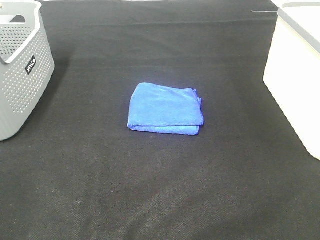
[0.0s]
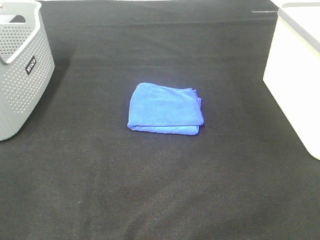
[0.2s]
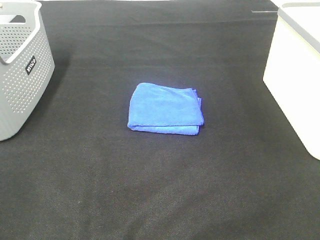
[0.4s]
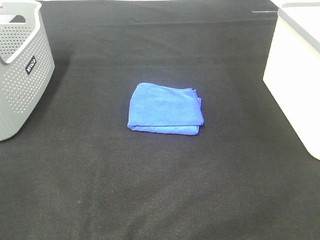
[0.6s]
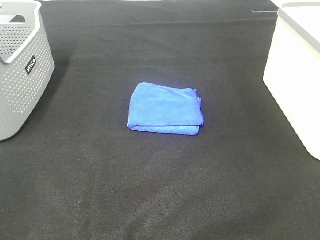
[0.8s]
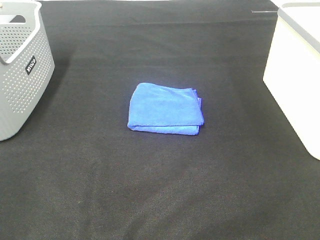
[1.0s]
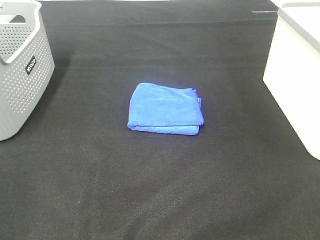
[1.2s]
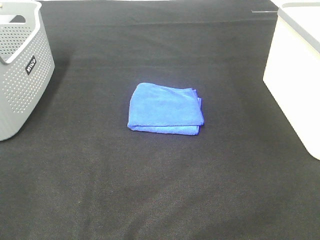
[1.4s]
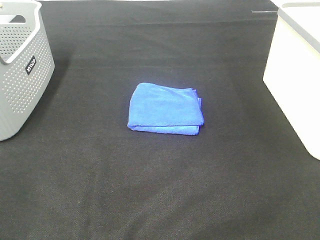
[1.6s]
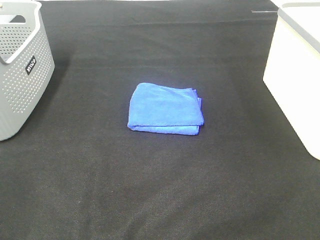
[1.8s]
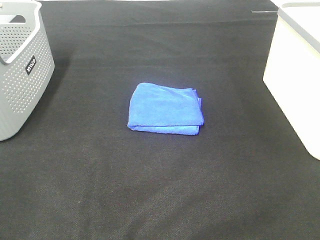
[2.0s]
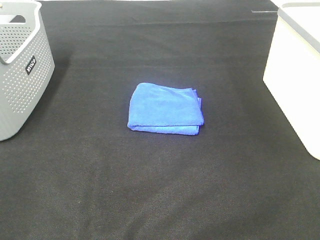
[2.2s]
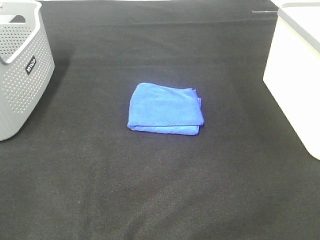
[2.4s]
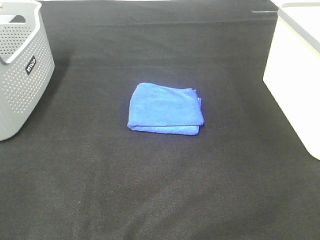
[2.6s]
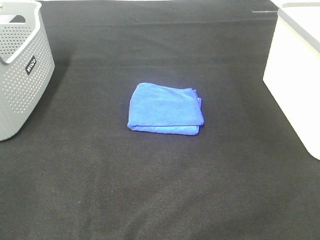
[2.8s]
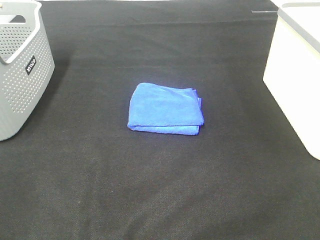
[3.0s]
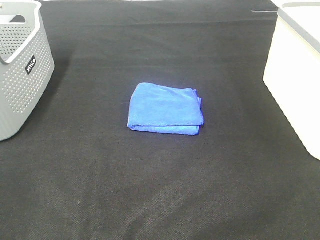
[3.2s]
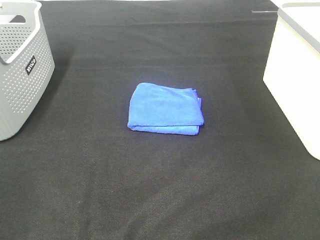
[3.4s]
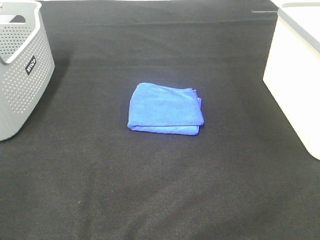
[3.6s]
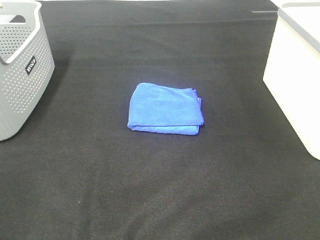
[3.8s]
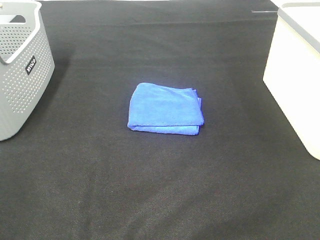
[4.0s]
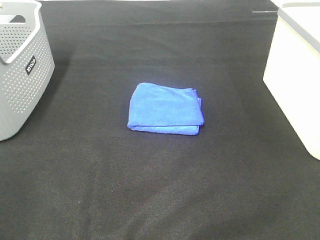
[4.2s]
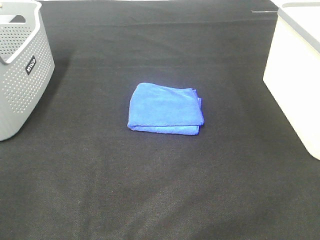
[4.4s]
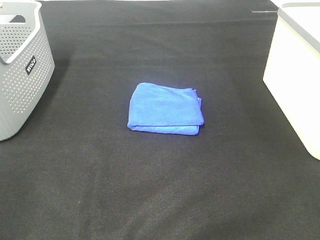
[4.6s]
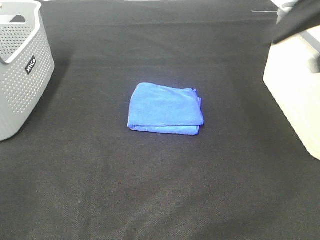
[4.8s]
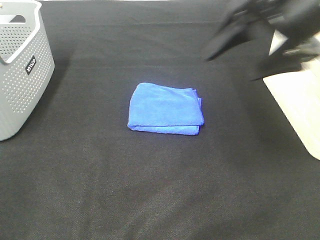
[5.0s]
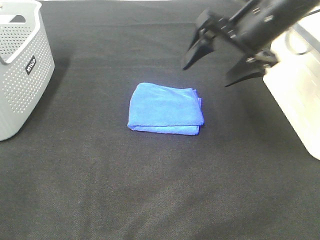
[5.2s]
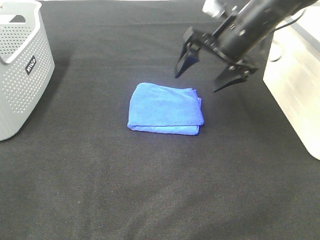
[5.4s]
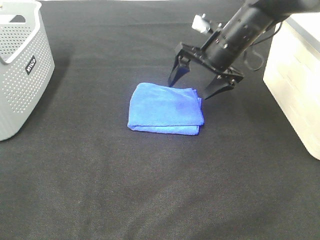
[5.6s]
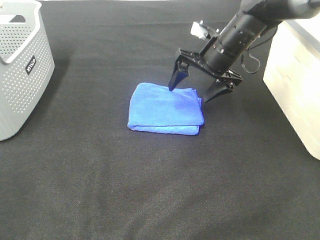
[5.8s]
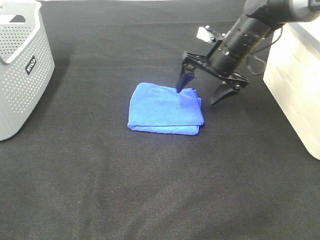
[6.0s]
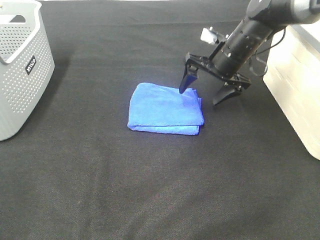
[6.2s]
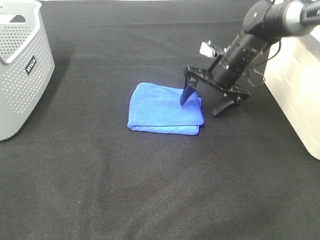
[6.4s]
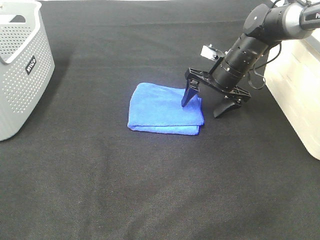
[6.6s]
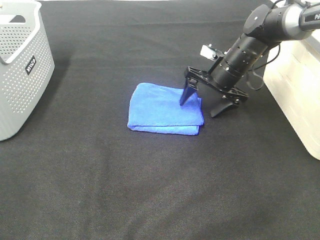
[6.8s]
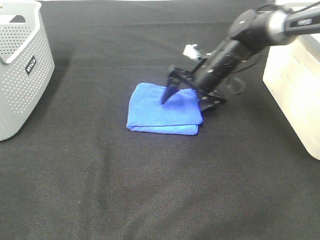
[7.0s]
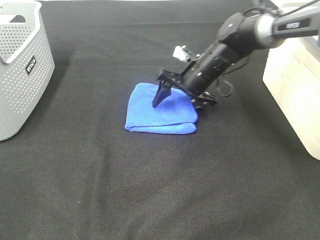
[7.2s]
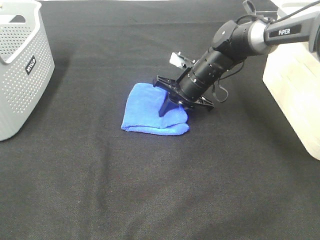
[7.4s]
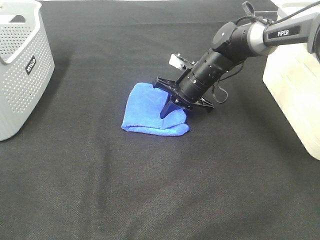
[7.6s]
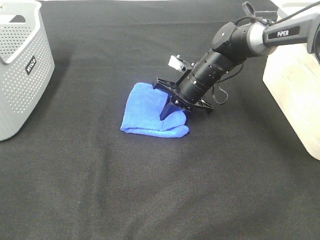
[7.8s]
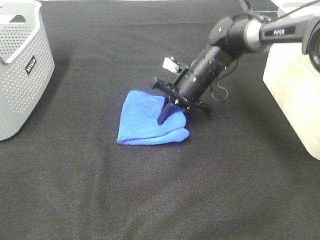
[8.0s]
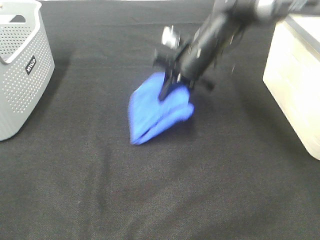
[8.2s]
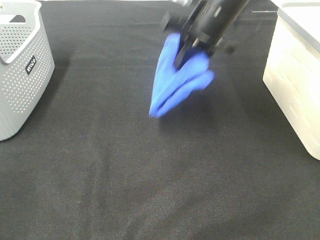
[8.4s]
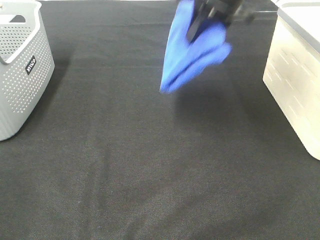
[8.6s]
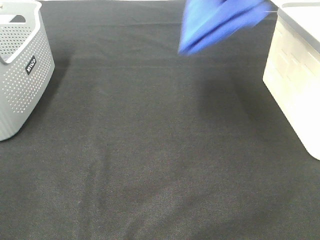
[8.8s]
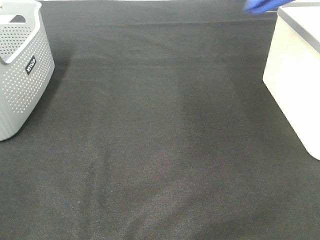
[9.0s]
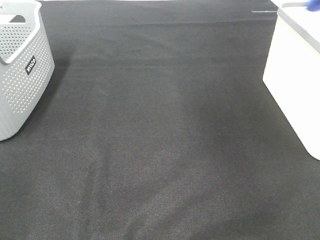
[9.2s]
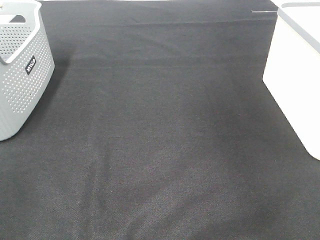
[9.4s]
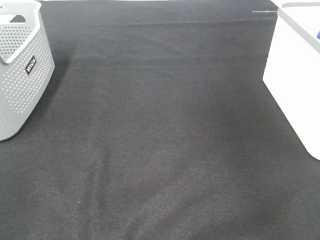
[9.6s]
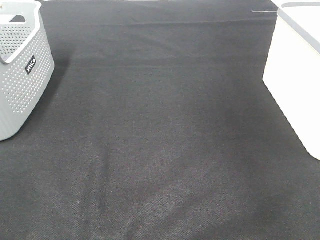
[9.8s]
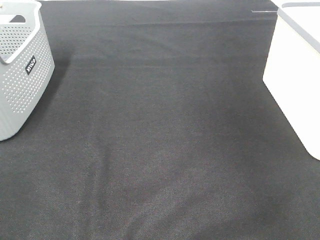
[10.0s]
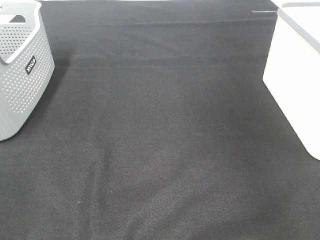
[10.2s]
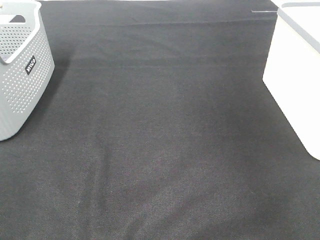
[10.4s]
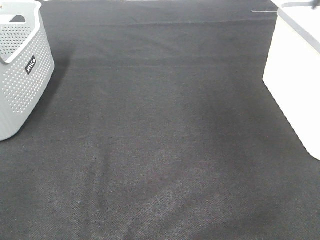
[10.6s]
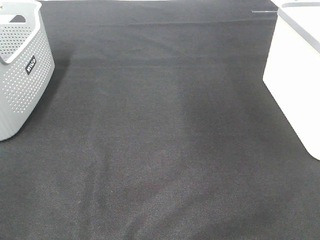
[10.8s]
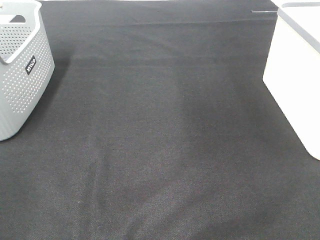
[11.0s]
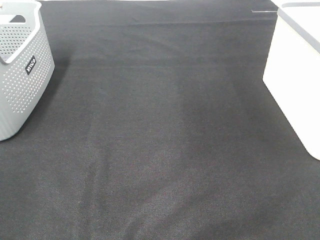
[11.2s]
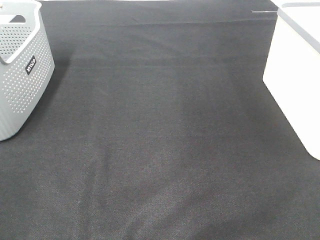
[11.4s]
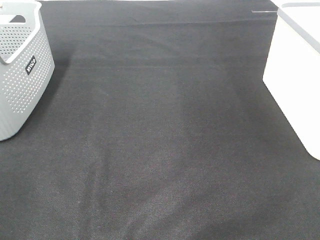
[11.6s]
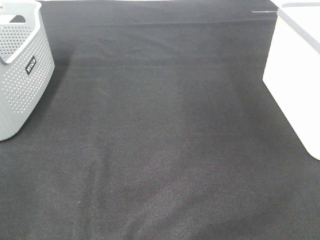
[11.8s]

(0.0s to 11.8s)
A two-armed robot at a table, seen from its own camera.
Step, 0.0s - 7.6s: Right hand: grab the folded blue towel.
Step, 7.8s - 10.2s: Right hand: place the blue towel in right basket.
0.0s - 3.0s: Both grippers stay about where they are.
4.4s - 6.0s: The right gripper shifts some 40 cm forward, downward and to the left.
6.0s - 7.4s: The right gripper moves downward and to the left, some 10 cm, and closes.
7.4s - 8.8s: The right gripper travels upward by roughly 30 cm.
8.8s - 10.4s: The right gripper moves to the right, about 20 cm, and opens.

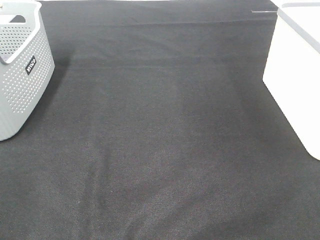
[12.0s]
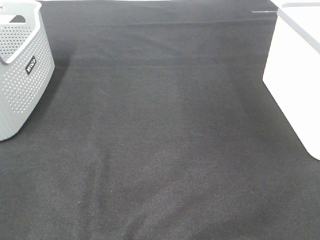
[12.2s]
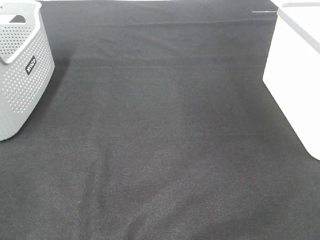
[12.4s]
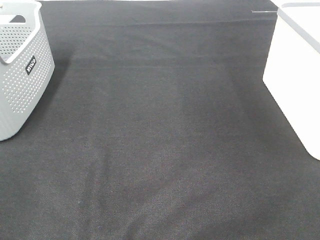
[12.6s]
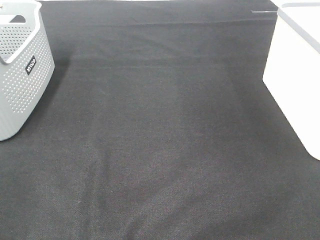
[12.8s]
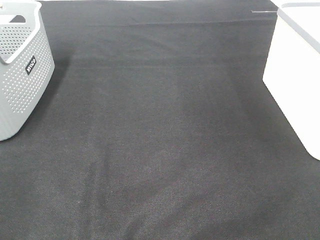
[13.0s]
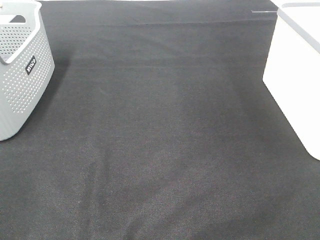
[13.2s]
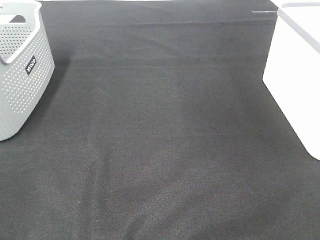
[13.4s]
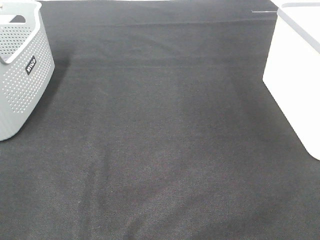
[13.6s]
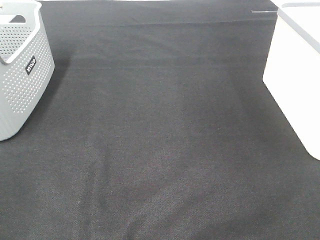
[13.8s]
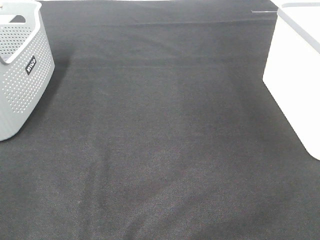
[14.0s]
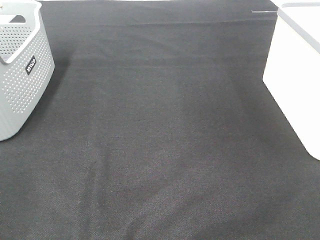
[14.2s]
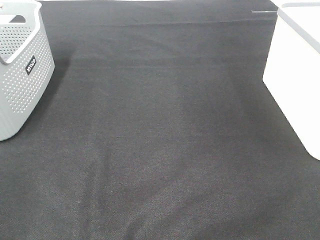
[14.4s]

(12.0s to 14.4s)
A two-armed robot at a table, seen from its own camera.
13.2s - 14.4s: The two grippers keep their place.

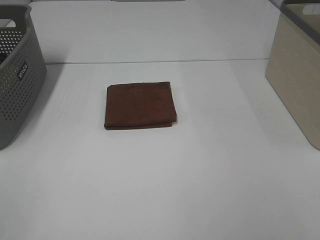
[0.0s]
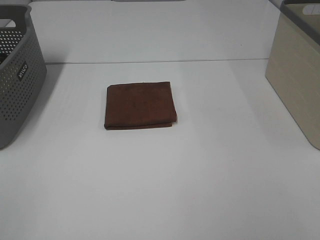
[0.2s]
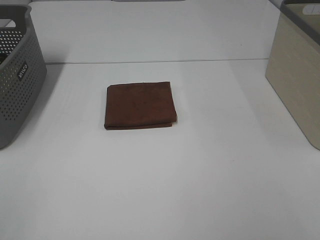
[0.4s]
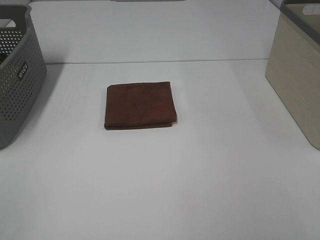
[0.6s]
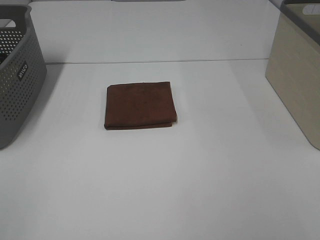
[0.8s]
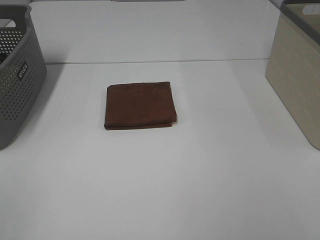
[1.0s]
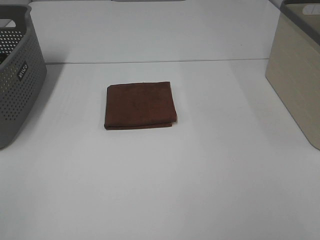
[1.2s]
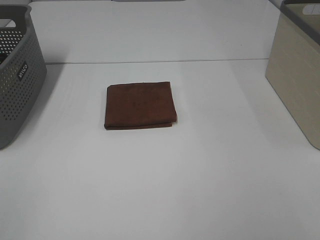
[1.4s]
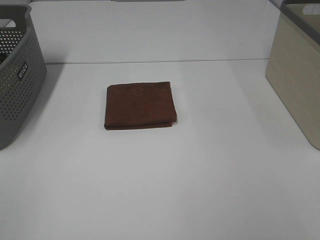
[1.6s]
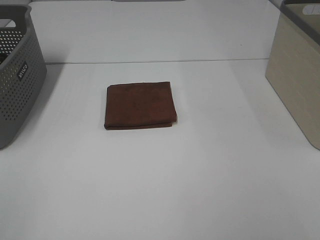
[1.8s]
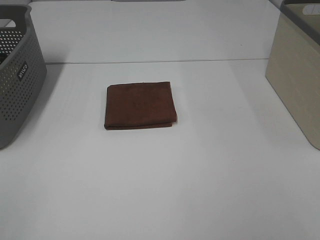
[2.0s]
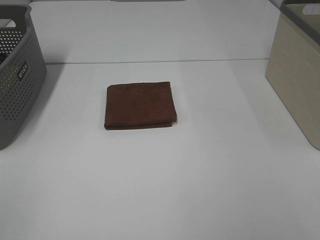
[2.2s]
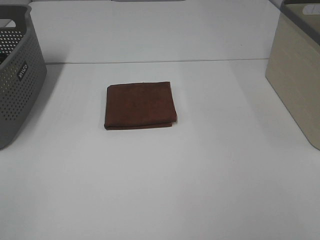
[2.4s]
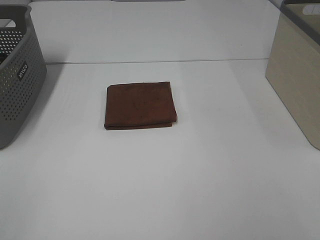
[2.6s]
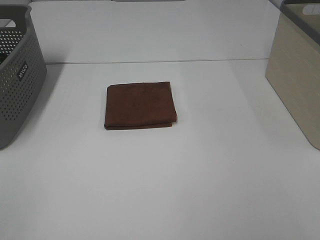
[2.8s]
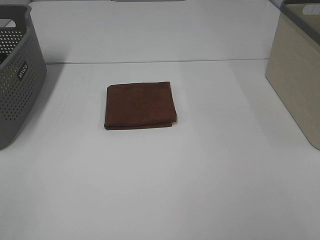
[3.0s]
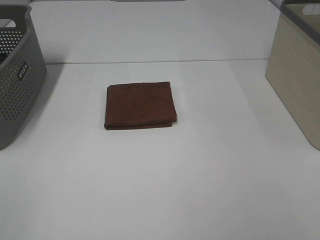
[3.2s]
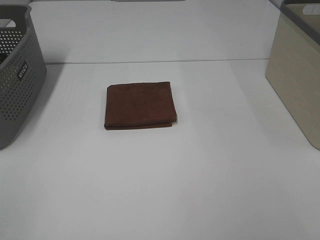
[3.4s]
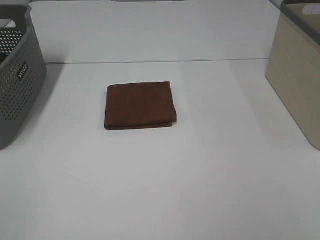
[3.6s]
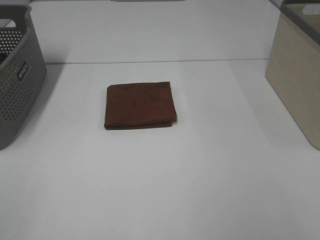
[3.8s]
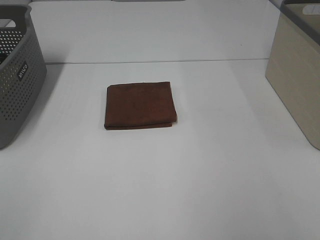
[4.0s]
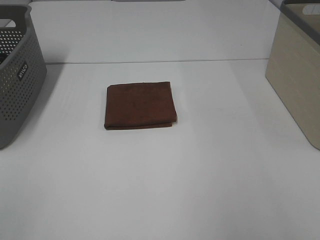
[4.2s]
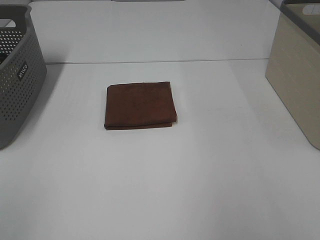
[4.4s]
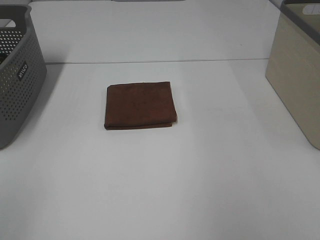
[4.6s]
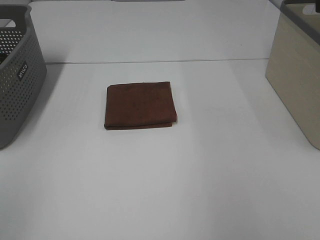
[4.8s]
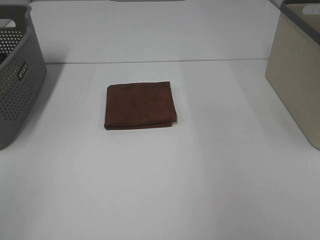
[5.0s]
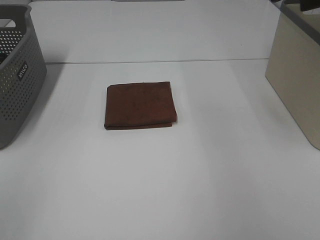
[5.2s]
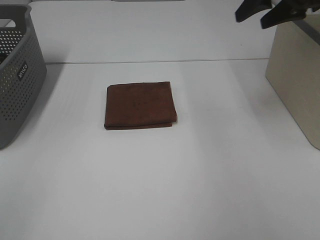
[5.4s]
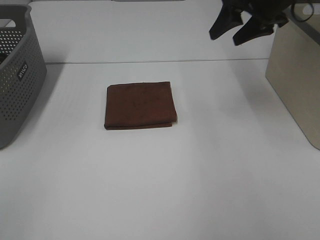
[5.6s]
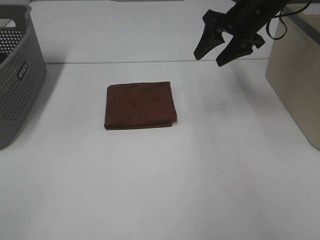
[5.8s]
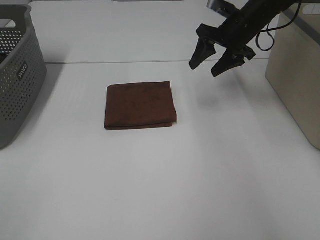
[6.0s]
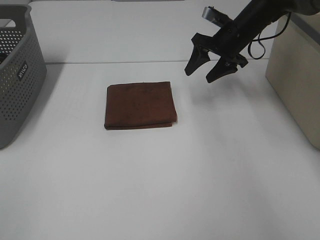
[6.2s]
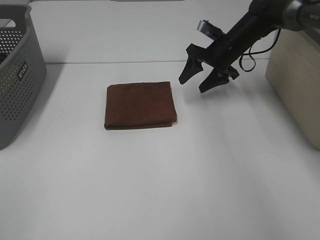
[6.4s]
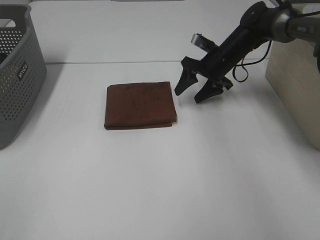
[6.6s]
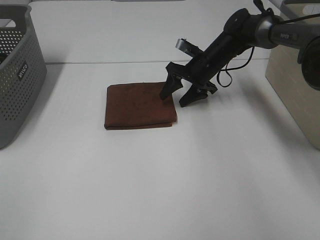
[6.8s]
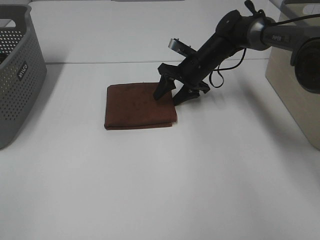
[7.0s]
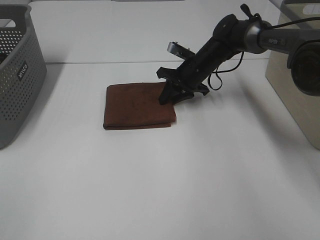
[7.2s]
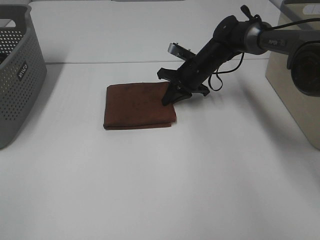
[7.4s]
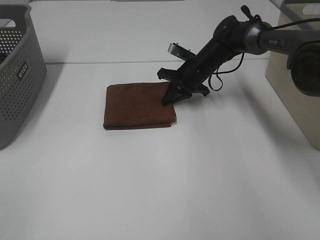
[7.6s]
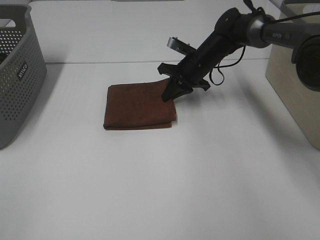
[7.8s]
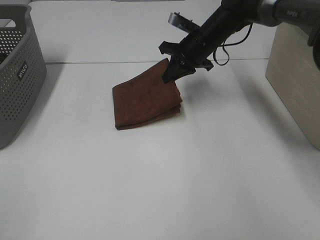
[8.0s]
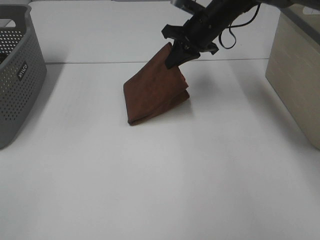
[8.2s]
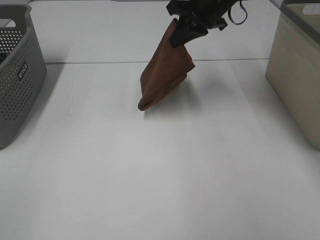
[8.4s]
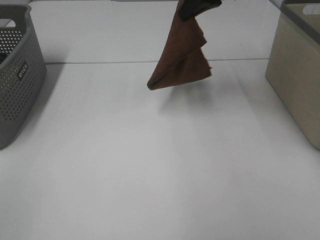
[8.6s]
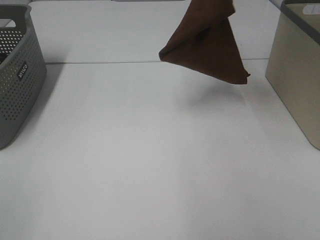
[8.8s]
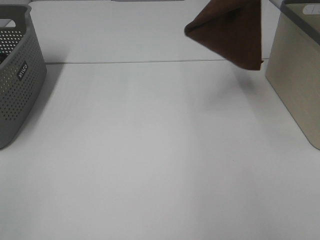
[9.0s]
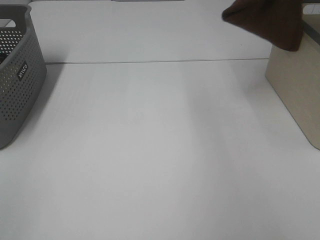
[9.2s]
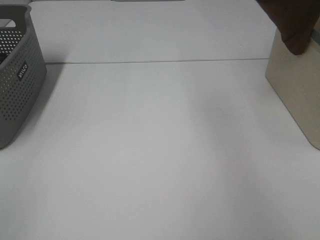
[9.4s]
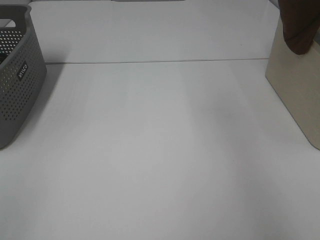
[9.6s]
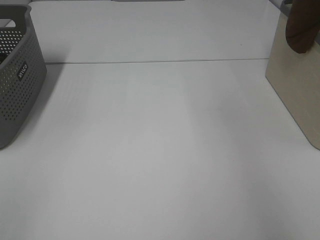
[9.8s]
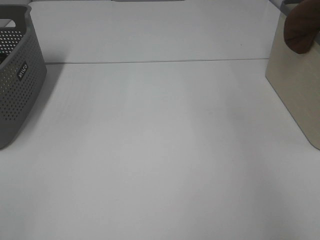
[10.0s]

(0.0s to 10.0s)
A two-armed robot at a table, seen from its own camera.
Step, 0.0s - 7.4s: Right hand: grab the folded brown towel.
0.0s - 2.8s: The two grippers keep their place.
4.2s - 5.8s: The right gripper heads forward, covering some 35 cm.
5.8s - 7.2s: The right gripper is displaced downward and to the left by approximately 15 cm, and closes its fingers.
7.2s - 8.6s: The right gripper shifts roughly 25 cm upward.
8.6s - 10.0s: The right gripper moves to the right, some 30 cm.
